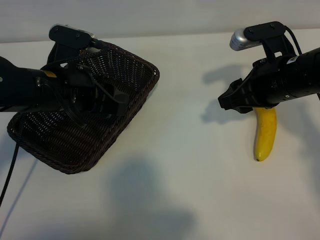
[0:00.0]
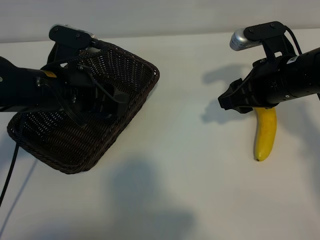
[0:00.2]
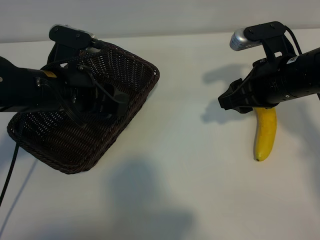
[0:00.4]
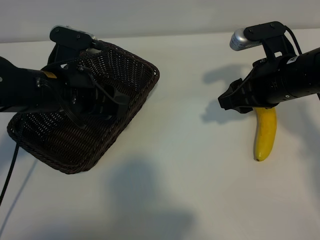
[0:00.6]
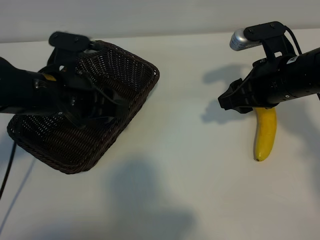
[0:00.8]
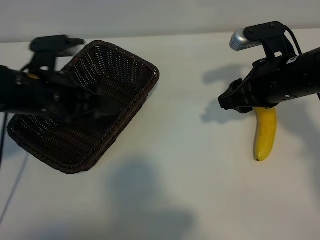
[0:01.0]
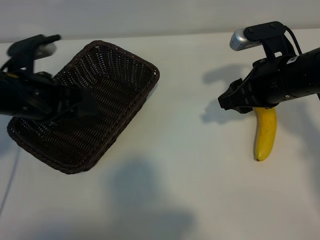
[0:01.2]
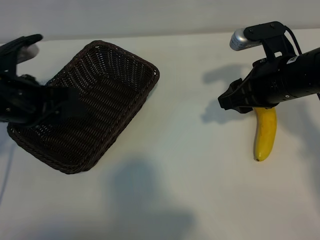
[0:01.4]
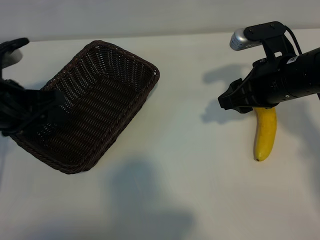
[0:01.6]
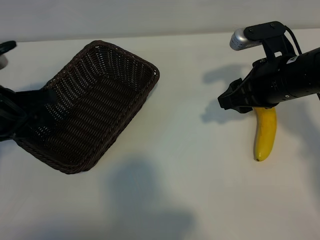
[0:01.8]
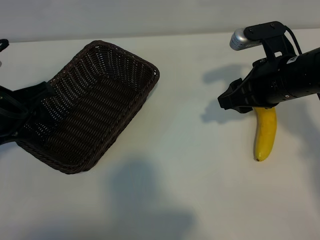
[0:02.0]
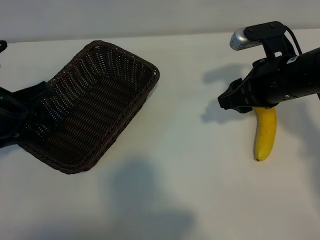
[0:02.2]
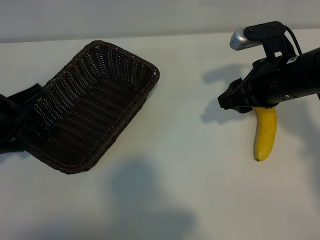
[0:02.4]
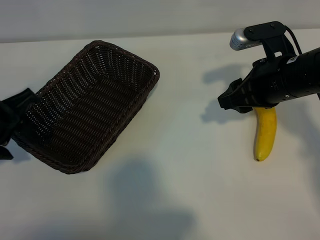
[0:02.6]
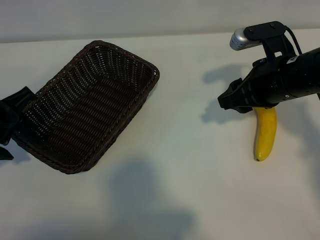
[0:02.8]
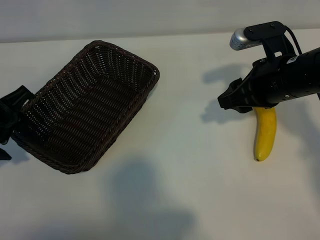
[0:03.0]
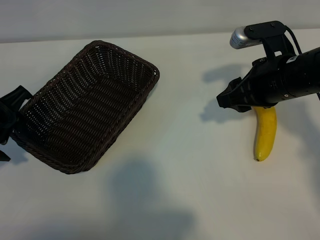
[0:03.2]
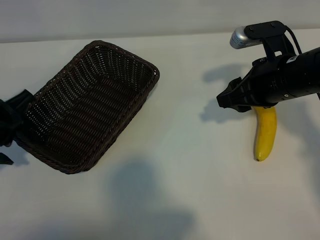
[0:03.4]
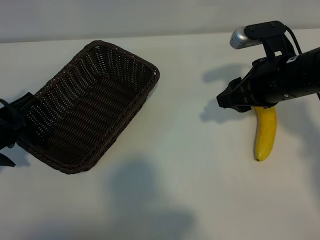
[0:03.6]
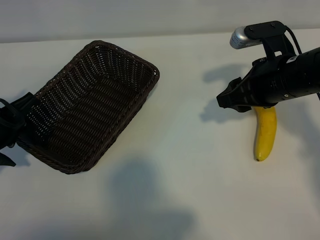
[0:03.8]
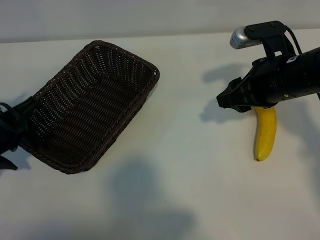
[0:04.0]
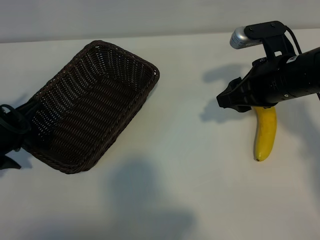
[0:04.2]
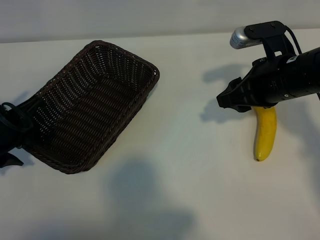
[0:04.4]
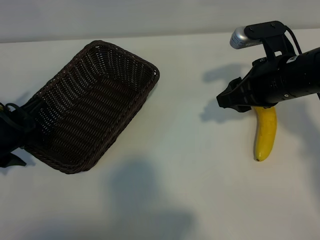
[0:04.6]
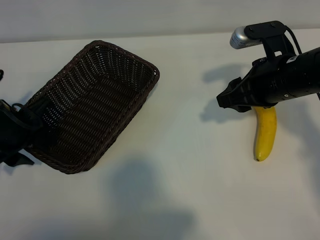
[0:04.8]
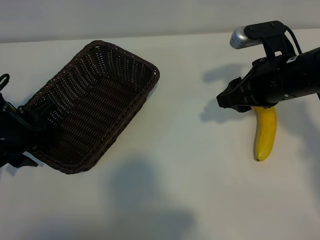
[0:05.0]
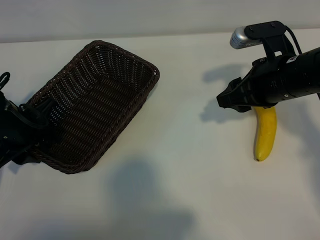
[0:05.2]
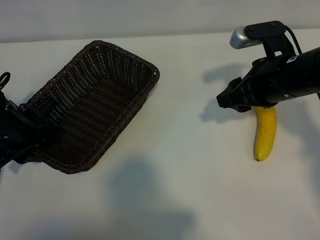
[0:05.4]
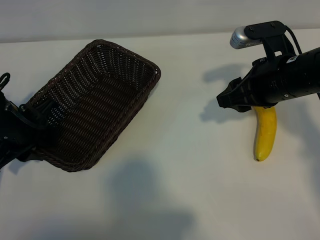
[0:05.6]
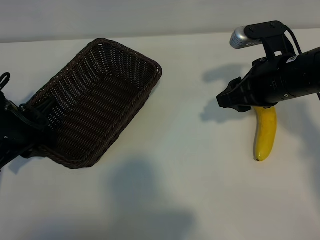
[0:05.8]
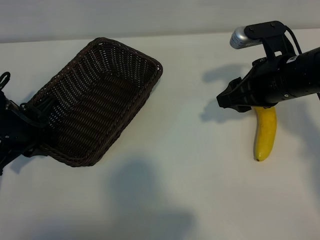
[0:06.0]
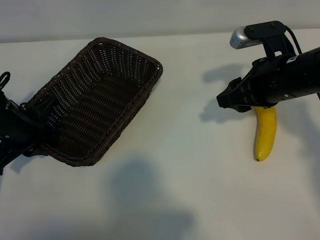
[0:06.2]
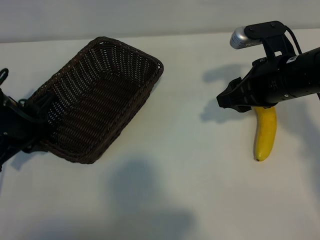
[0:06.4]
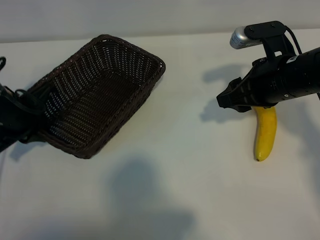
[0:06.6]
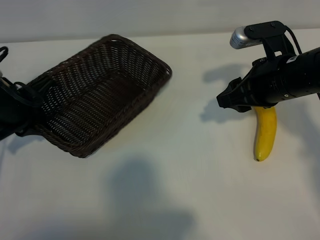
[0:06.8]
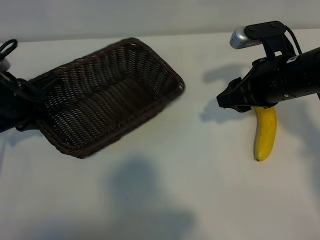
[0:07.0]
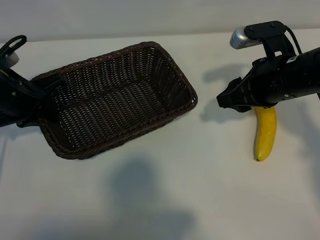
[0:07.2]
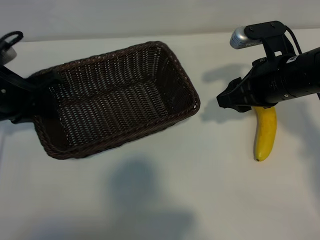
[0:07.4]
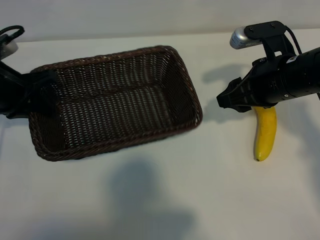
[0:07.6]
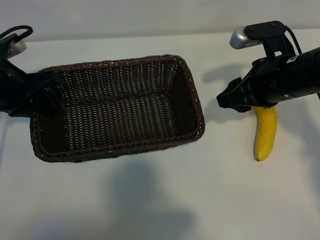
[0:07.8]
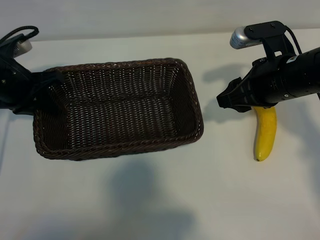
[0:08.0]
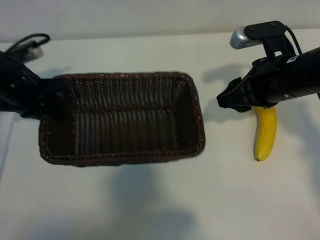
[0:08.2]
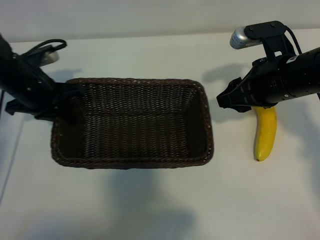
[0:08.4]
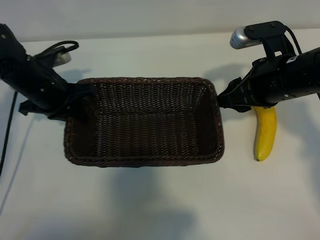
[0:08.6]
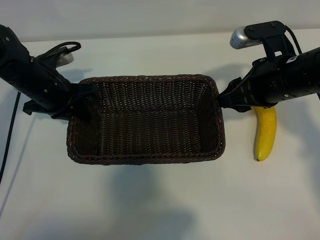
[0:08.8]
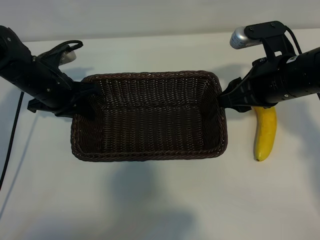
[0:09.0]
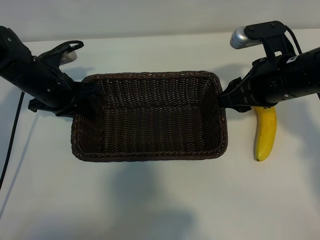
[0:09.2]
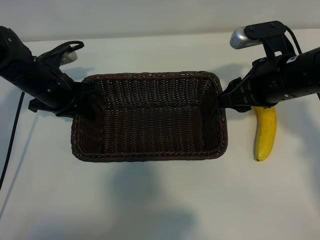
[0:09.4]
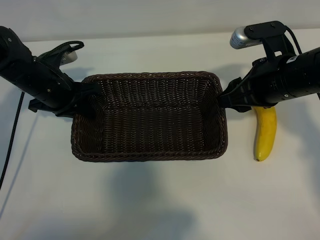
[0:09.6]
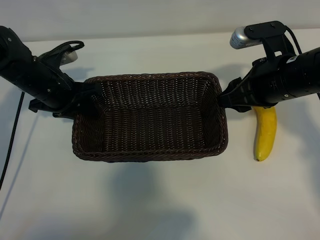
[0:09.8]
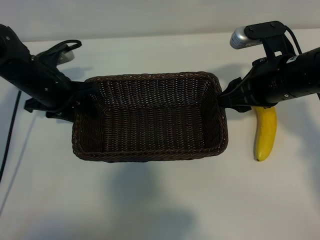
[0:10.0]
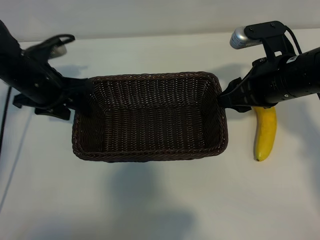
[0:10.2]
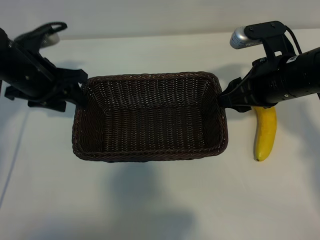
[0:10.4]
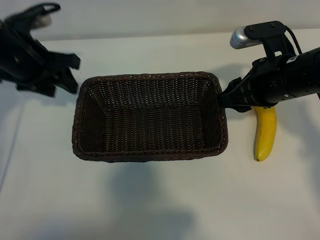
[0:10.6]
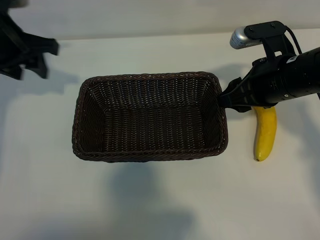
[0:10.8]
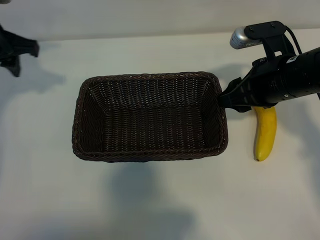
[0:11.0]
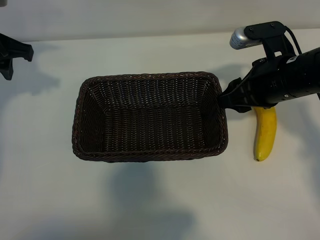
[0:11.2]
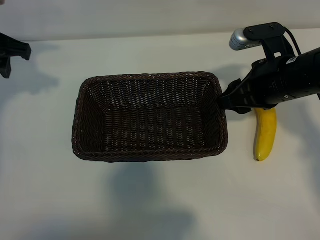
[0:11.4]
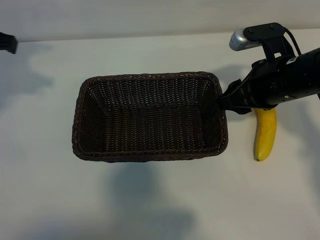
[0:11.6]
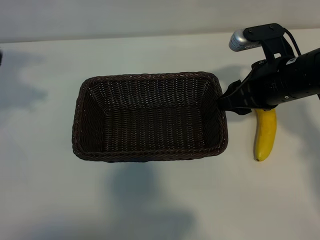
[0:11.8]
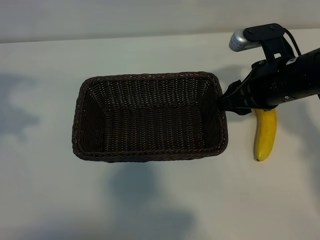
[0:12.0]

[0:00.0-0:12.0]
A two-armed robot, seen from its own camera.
Task of the whole recording: pick up the banana and put it into the basket.
Step, 0:00.6 to 0:06.2: Grasp the basket with the left gripper.
Step, 0:06.4 to 0:10.4: Place the basket in the center of the table with the left gripper.

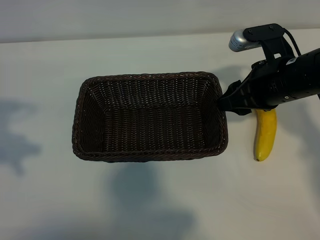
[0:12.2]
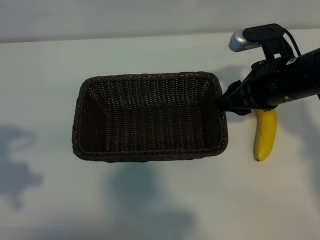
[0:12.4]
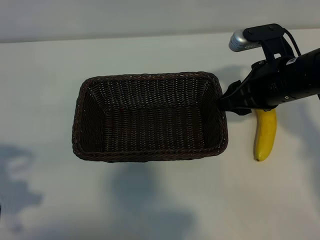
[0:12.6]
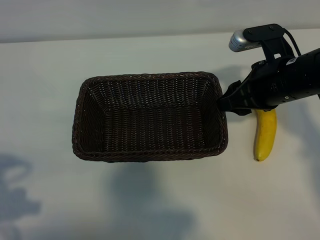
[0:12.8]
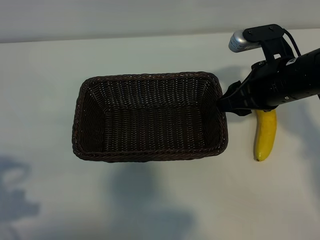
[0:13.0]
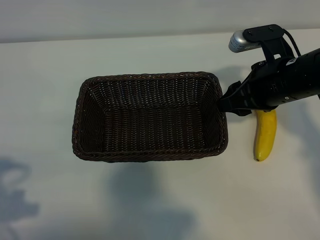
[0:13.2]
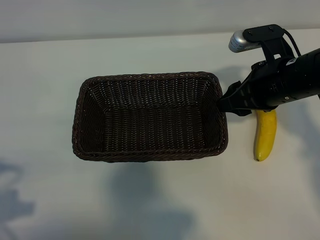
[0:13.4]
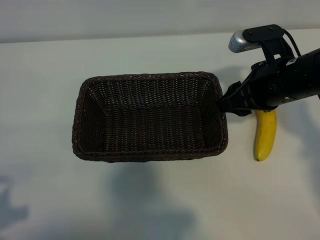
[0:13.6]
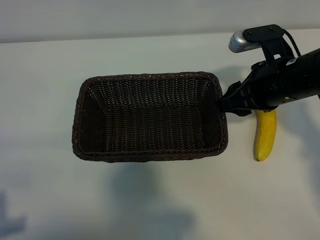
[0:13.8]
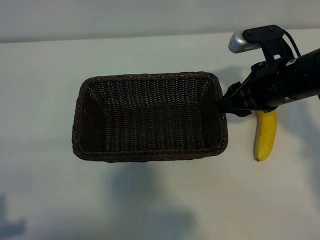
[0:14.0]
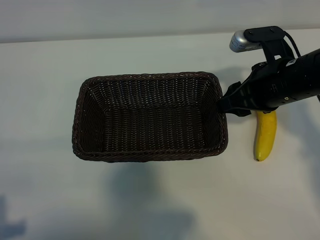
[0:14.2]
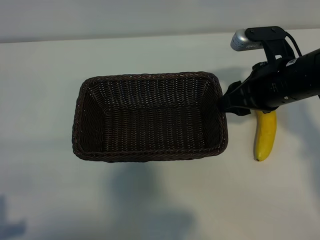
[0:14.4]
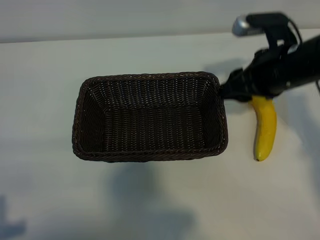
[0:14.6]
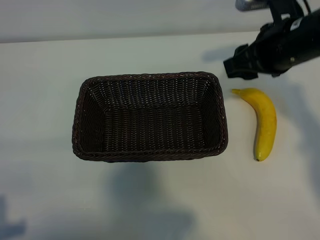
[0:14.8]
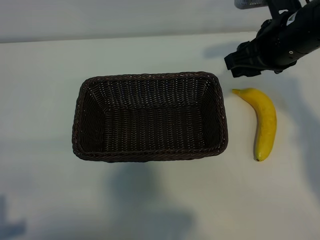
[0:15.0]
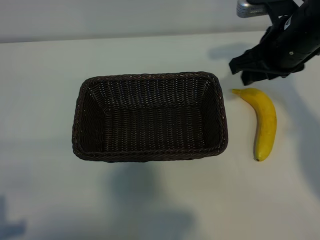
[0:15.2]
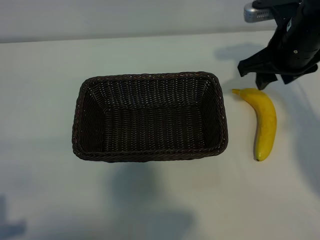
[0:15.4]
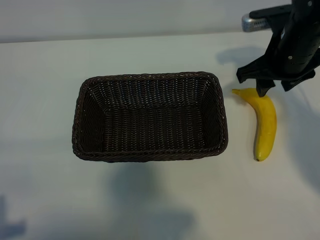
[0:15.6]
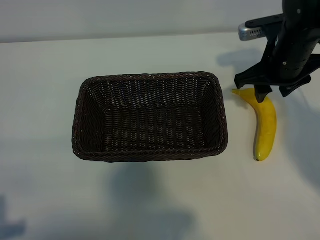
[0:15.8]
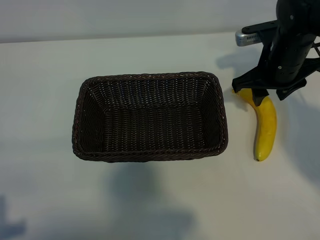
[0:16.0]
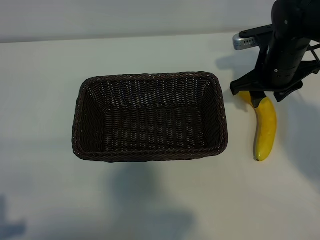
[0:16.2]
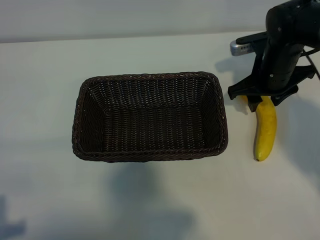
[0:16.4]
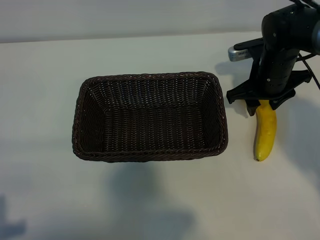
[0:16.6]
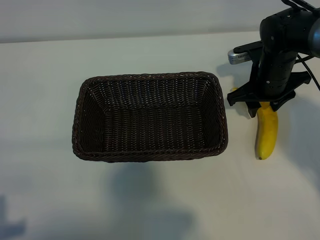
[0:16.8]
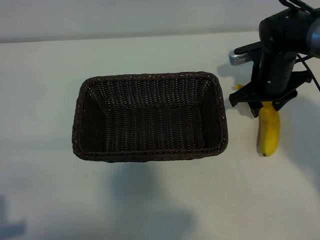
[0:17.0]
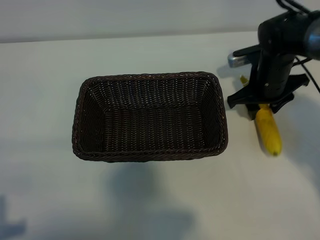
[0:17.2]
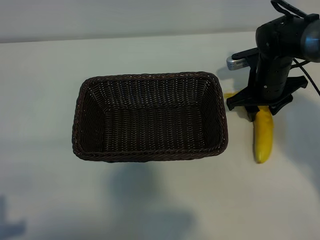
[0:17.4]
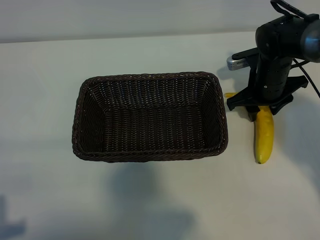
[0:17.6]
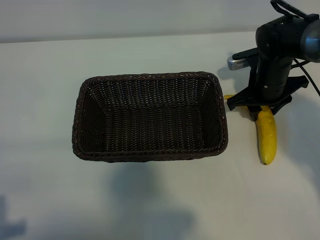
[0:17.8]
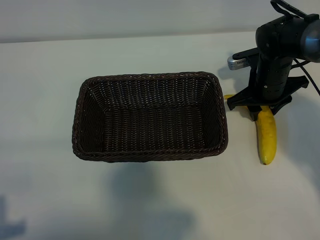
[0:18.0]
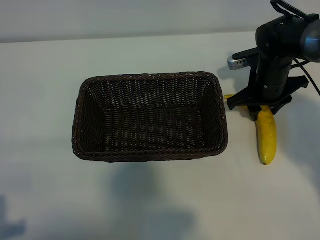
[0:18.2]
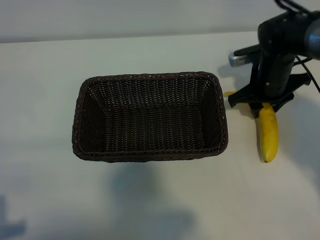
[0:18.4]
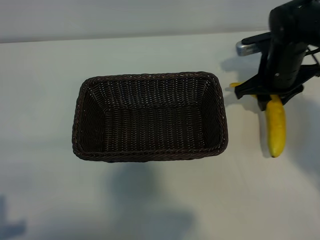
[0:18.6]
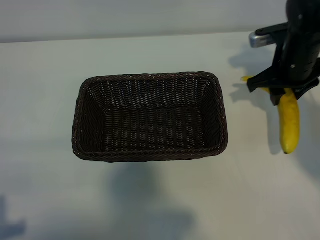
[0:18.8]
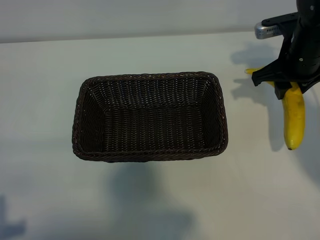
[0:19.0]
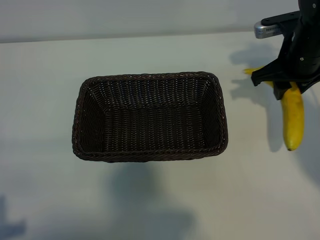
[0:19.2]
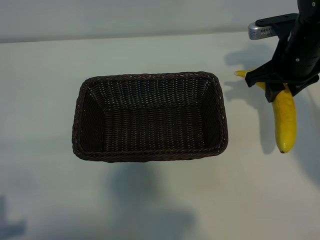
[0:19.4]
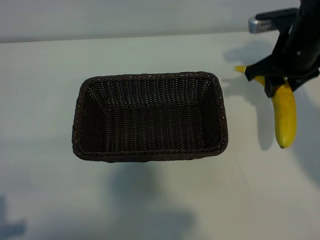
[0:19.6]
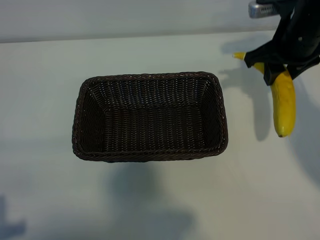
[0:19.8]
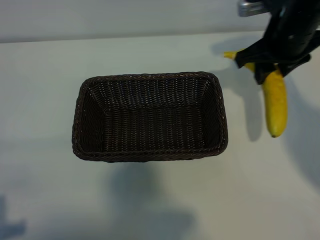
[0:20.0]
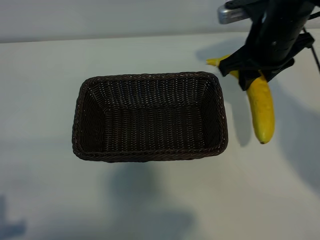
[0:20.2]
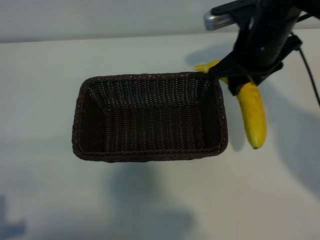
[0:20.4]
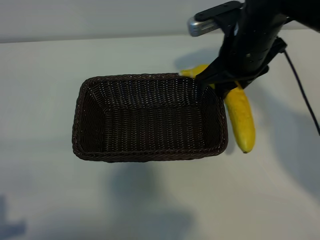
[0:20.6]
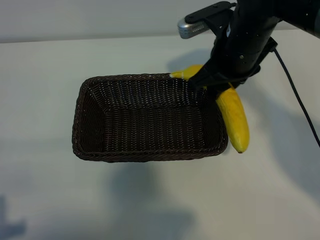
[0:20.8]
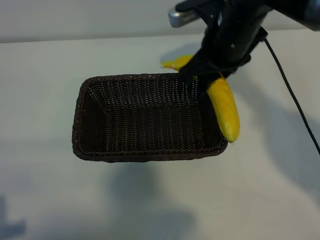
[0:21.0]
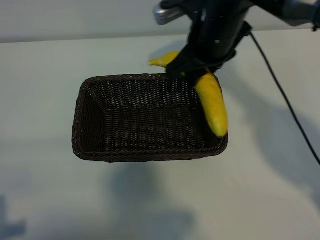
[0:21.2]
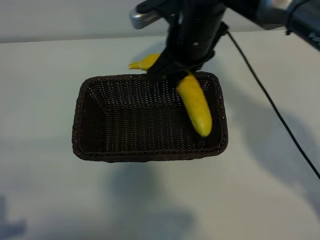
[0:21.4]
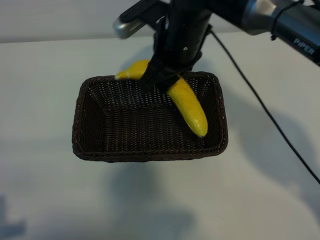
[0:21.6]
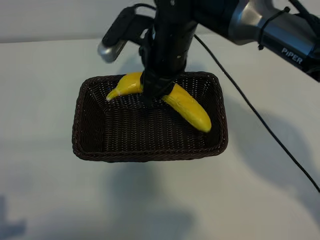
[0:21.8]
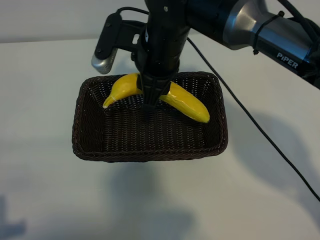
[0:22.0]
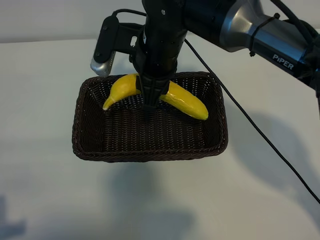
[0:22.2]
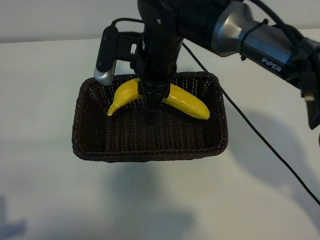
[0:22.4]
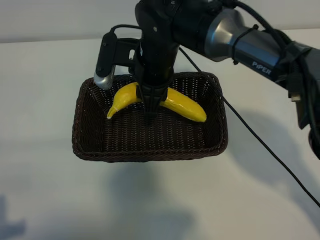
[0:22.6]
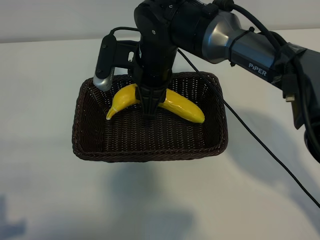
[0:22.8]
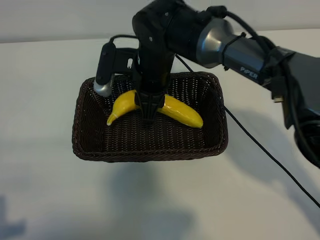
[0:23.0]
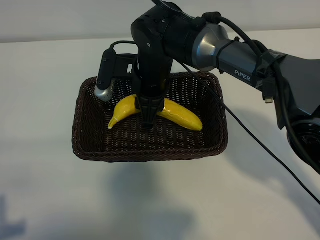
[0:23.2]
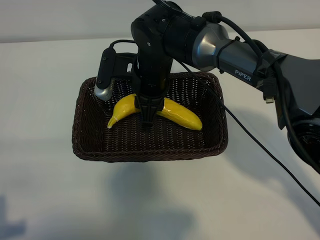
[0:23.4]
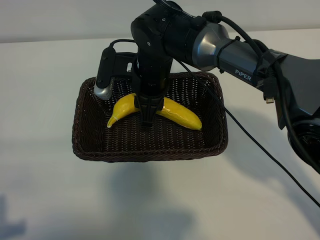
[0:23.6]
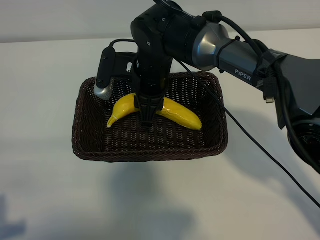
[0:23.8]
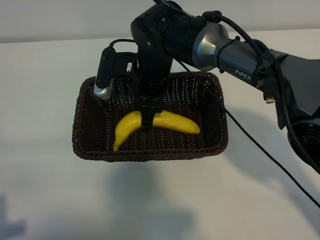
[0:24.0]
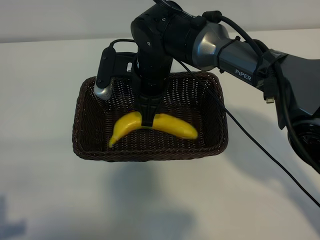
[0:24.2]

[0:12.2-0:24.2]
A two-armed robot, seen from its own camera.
Task of the whole recording: pick up the banana and put it into the basket.
Step, 0:12.2 to 0:17.6: Grasp the banana with right gripper.
